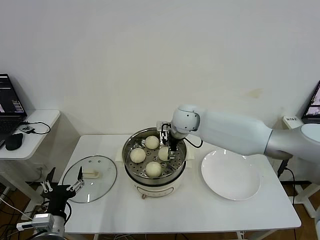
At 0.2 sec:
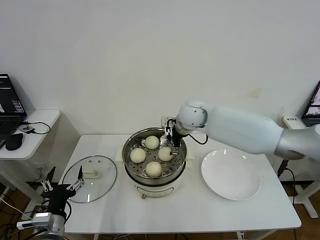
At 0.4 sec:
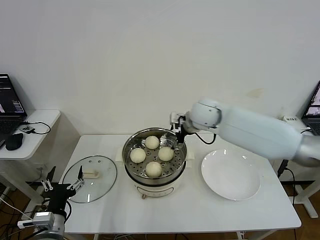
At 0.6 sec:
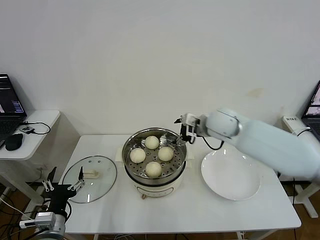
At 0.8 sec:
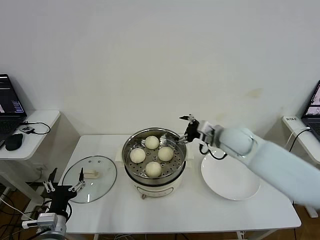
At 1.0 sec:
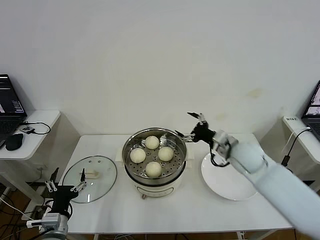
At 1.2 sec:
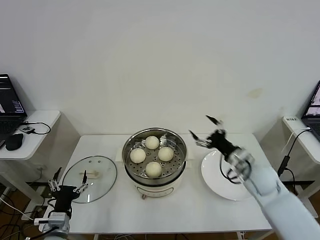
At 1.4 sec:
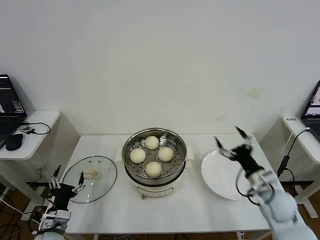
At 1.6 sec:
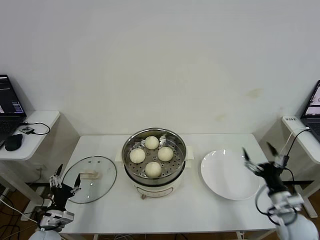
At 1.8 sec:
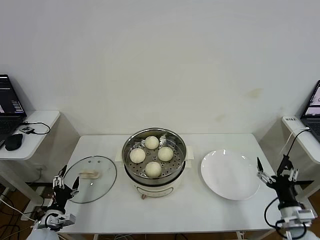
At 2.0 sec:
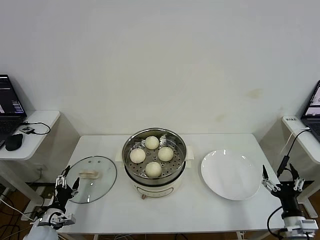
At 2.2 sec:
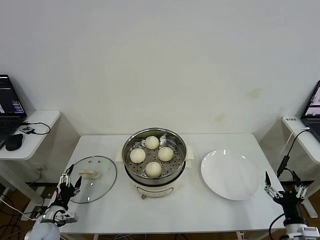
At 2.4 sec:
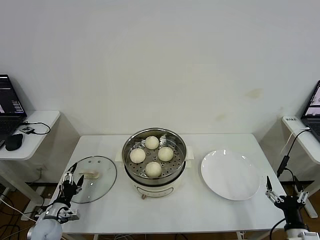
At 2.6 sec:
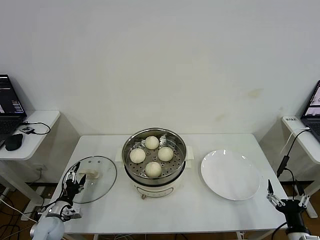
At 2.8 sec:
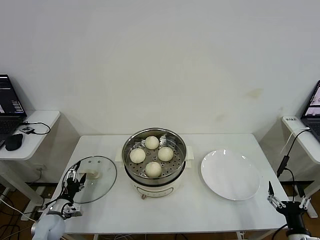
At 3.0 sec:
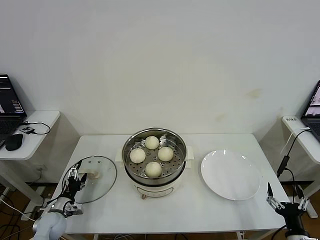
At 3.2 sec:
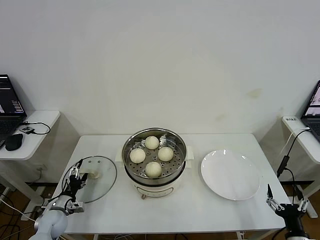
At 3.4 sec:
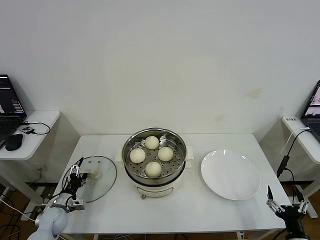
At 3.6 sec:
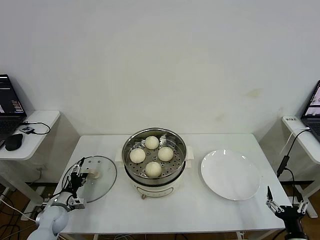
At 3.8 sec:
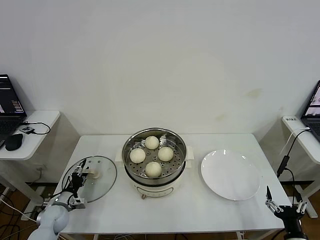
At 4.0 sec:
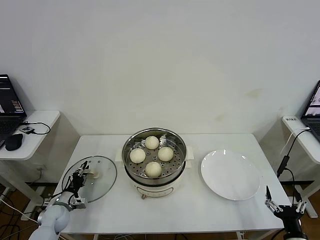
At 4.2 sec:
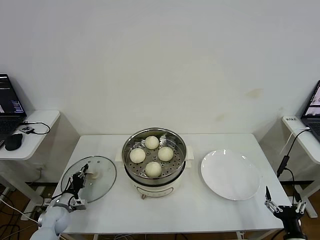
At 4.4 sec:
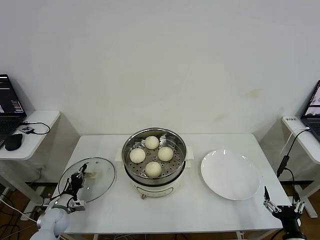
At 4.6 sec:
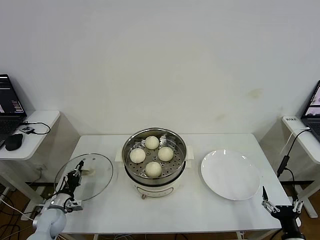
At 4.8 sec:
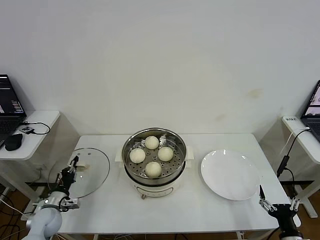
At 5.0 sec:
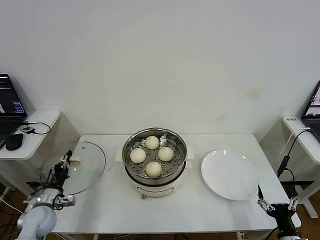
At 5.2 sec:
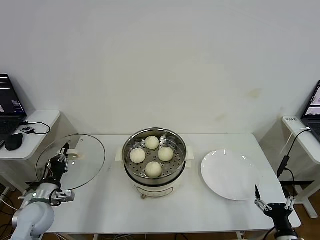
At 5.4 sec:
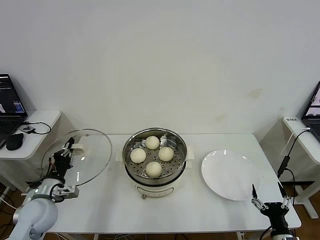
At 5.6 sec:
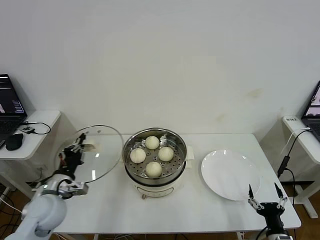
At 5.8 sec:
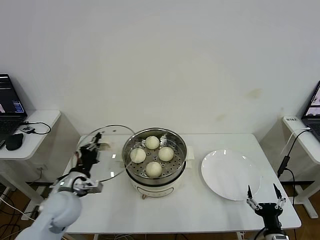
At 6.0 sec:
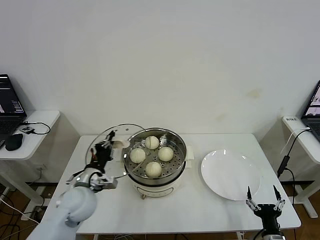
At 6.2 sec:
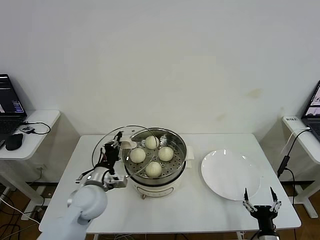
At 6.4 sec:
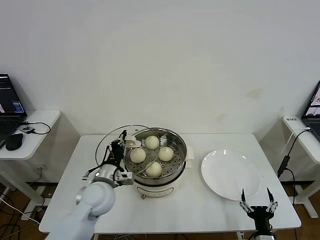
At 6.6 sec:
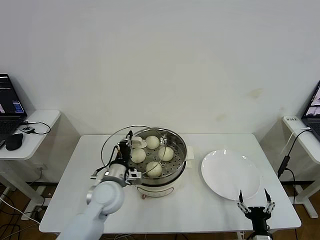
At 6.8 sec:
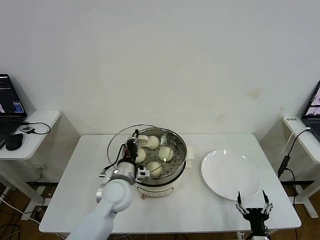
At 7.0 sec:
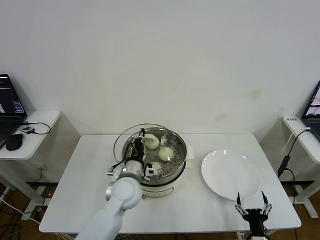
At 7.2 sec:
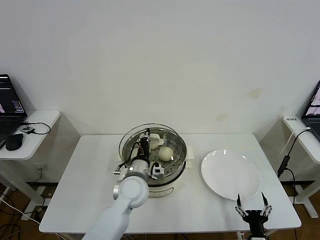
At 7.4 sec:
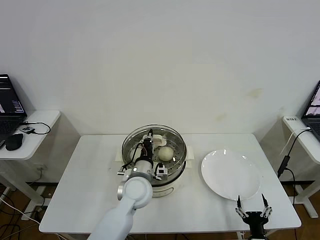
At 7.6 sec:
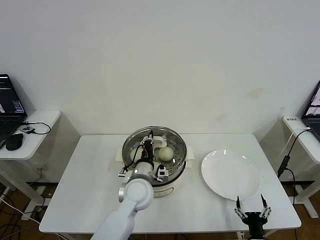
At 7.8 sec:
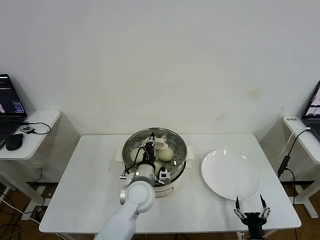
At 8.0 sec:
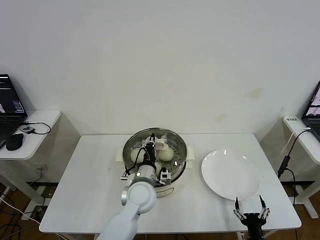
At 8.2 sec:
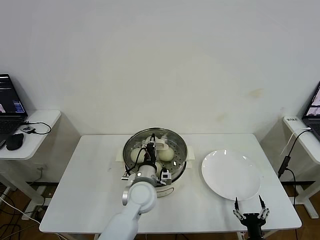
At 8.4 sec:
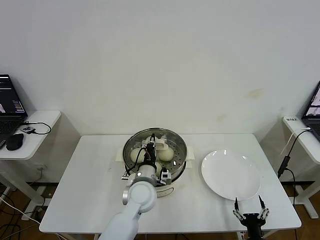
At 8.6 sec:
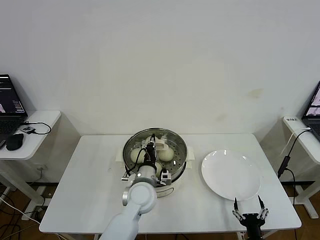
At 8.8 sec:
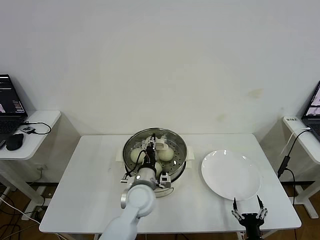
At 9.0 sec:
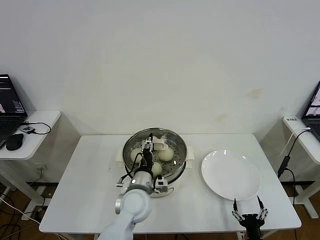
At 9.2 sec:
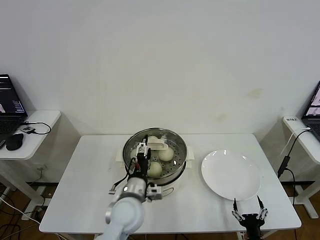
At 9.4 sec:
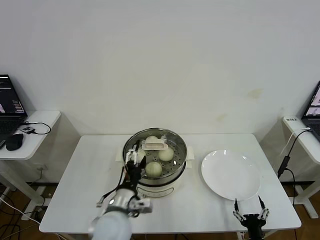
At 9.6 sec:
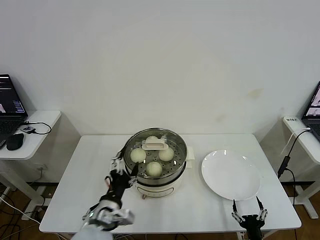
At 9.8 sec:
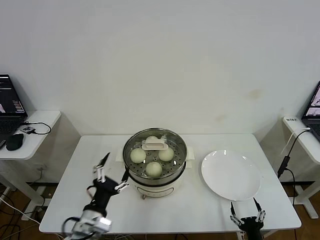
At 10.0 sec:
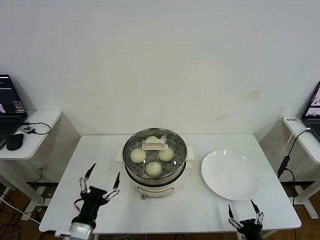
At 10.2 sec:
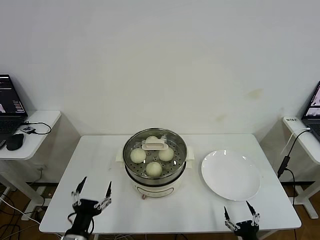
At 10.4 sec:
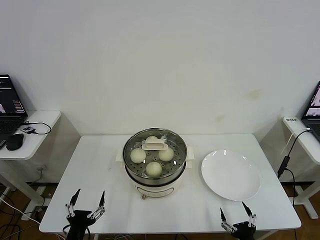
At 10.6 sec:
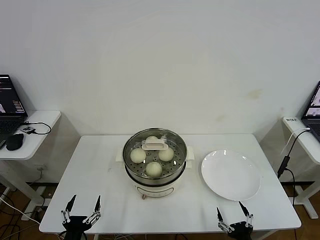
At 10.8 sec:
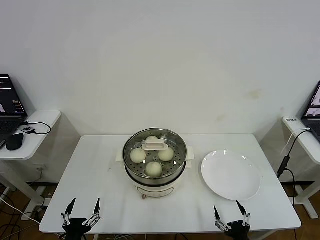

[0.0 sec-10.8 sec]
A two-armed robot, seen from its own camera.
Step, 0.2 sec to 4.4 sec: Grasp the pot lid with left gripper.
Step, 4.6 sec to 9.0 sec: Place the pot lid on the steamer with left gripper.
0.0 sec to 1.6 sec: The left gripper heads downward, to the left and forward, covering roughly 15 cm. Meanwhile the right gripper is displaced to the right, backward and downward by some 50 cm.
1.6 sec to 3.0 sec: The left gripper travels forward and downward by about 10 cm. Meanwhile the right gripper travels backward and downward by some 15 cm.
3.0 sec to 4.6 sec: The left gripper closes.
4.6 sec to 6.2 sec: The left gripper is displaced to the right and upward by some 25 cm. The right gripper heads to the left, covering some 5 cm.
6.2 sec to 7.8 sec: The left gripper shifts some 15 cm to the right.
7.8 sec to 9.2 sec: The left gripper shifts by roughly 5 cm, and opens its fingers.
9.2 sec to 10.8 sec: The left gripper shifts approximately 30 cm backward, to the left and downward; the right gripper changes place by some 5 cm.
